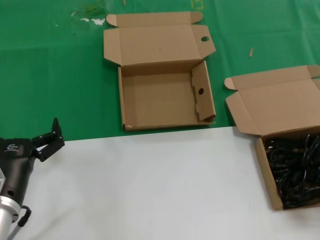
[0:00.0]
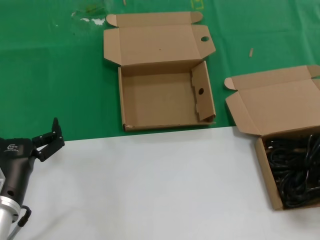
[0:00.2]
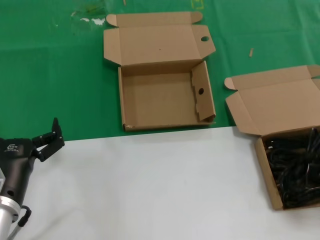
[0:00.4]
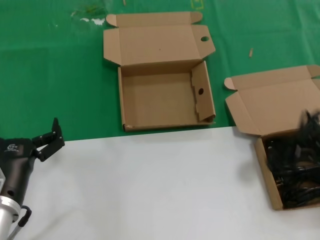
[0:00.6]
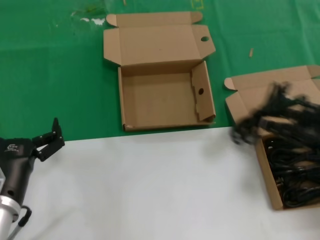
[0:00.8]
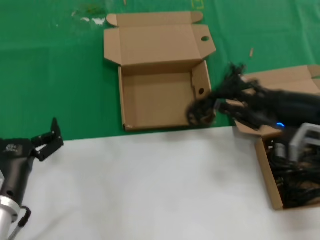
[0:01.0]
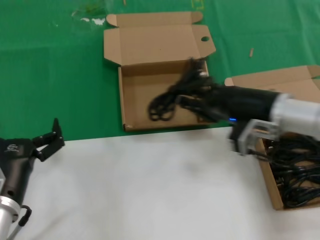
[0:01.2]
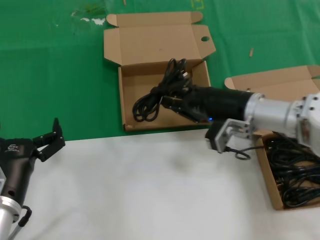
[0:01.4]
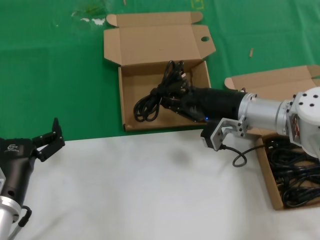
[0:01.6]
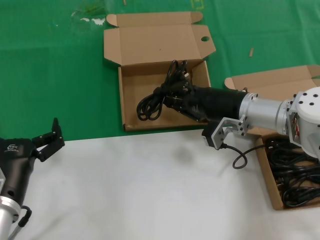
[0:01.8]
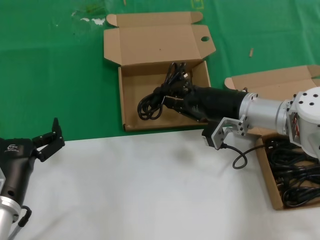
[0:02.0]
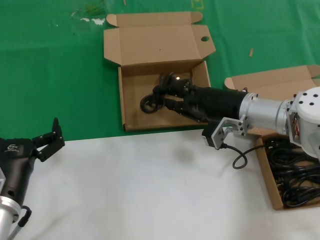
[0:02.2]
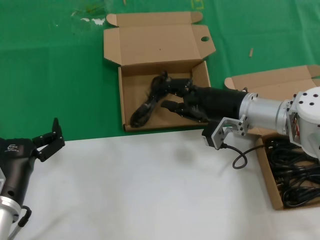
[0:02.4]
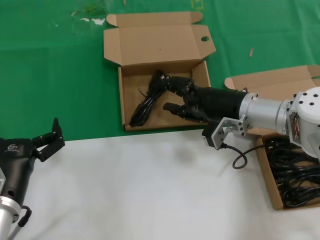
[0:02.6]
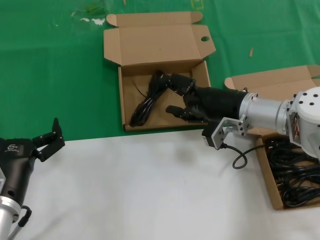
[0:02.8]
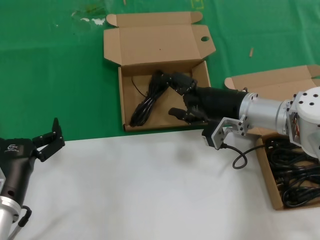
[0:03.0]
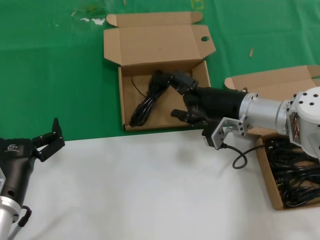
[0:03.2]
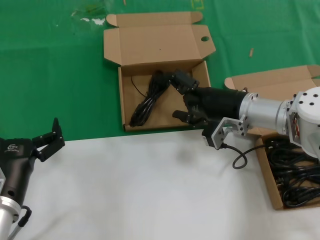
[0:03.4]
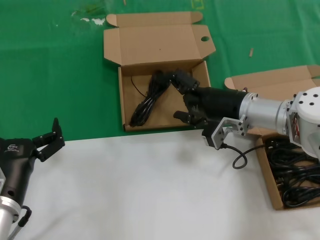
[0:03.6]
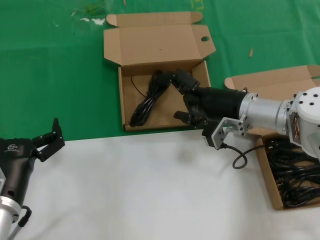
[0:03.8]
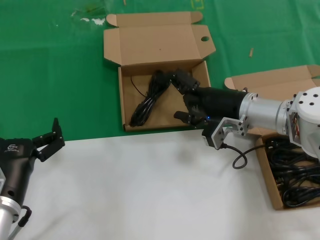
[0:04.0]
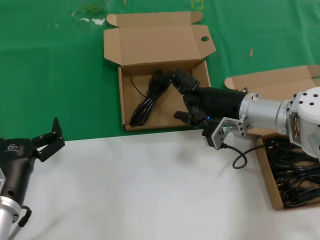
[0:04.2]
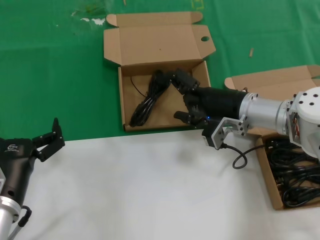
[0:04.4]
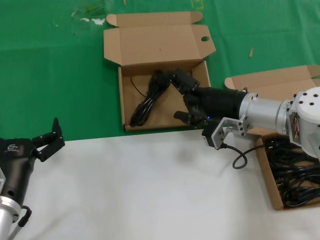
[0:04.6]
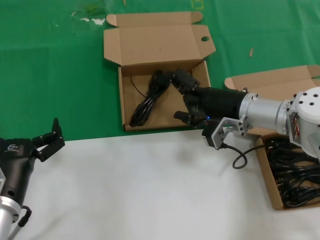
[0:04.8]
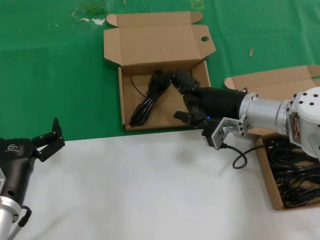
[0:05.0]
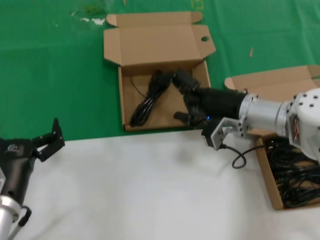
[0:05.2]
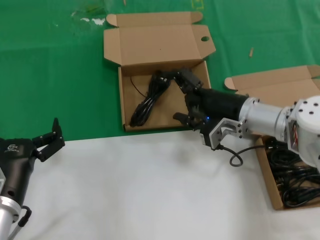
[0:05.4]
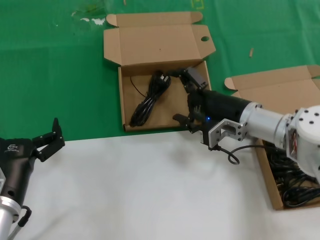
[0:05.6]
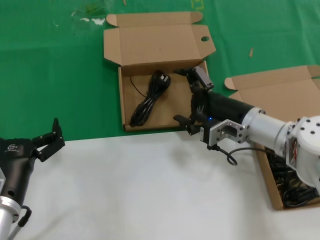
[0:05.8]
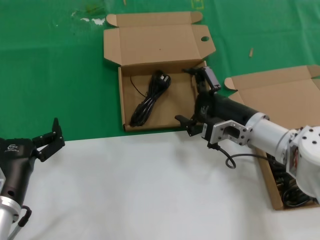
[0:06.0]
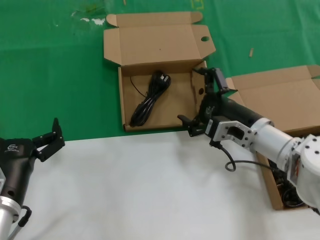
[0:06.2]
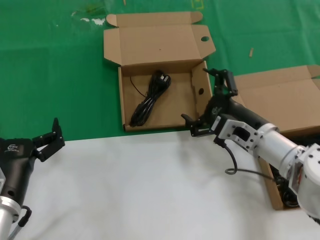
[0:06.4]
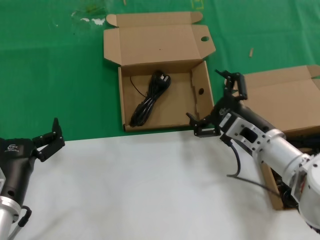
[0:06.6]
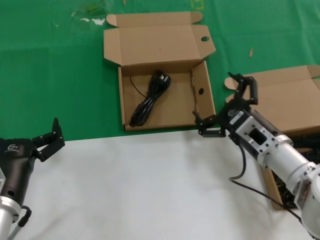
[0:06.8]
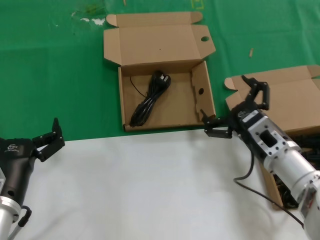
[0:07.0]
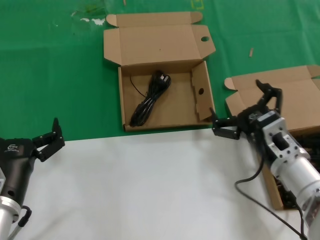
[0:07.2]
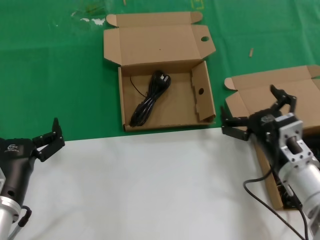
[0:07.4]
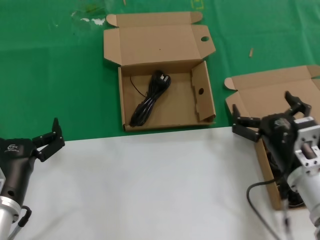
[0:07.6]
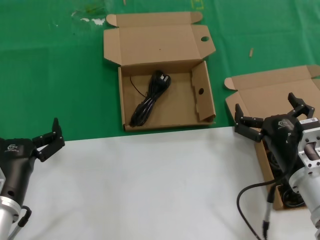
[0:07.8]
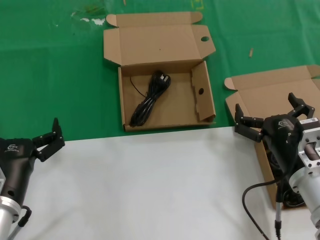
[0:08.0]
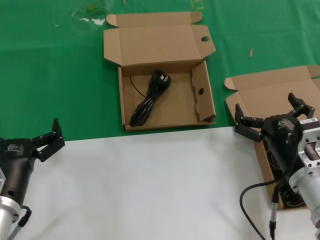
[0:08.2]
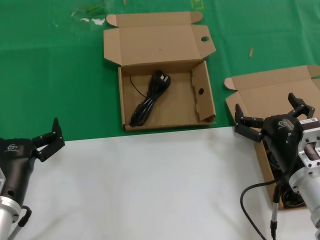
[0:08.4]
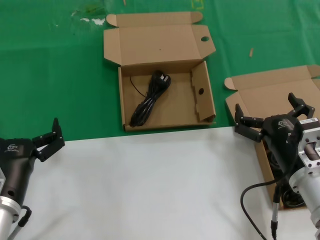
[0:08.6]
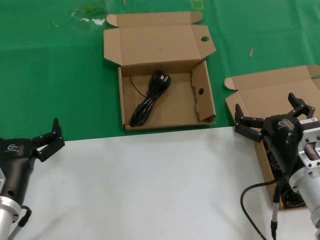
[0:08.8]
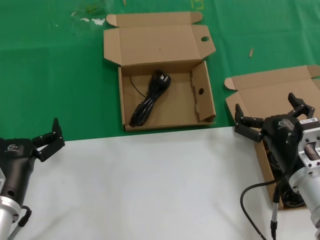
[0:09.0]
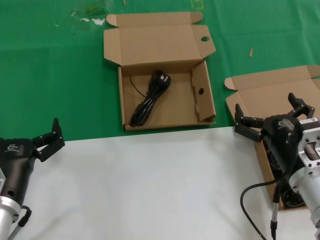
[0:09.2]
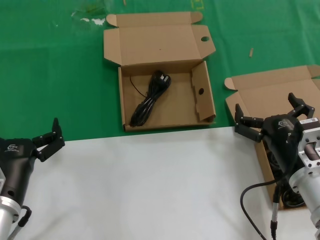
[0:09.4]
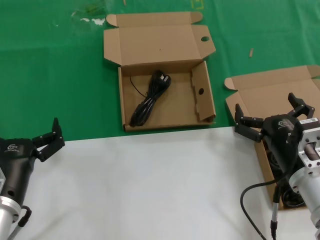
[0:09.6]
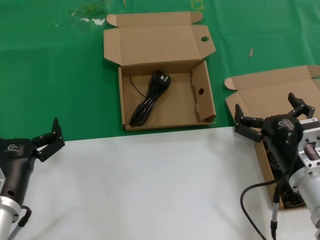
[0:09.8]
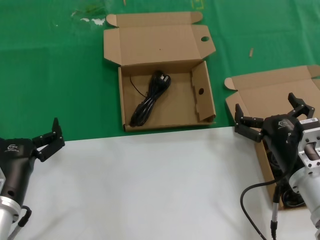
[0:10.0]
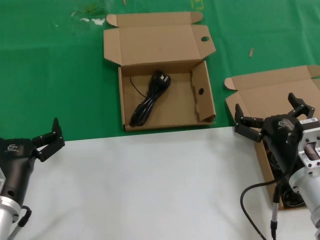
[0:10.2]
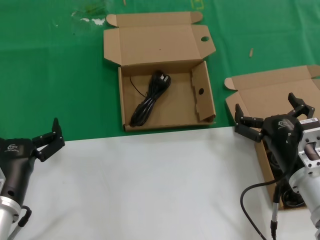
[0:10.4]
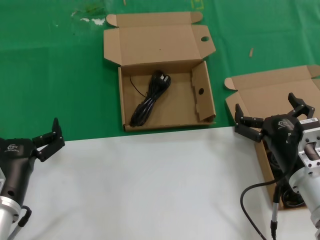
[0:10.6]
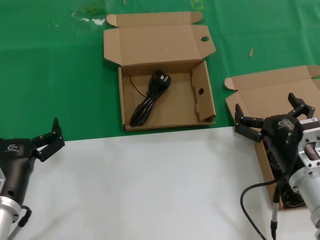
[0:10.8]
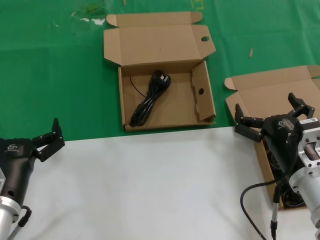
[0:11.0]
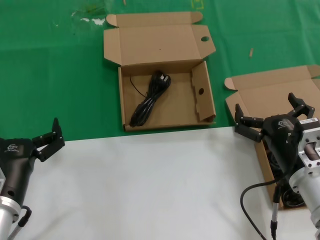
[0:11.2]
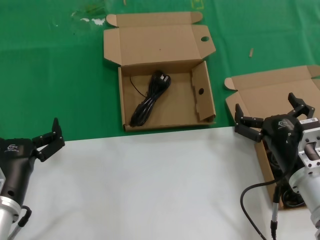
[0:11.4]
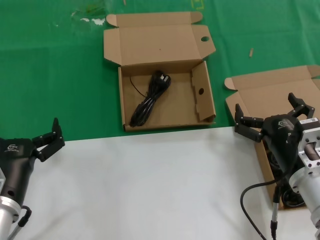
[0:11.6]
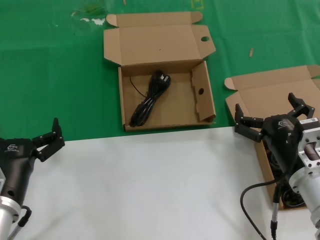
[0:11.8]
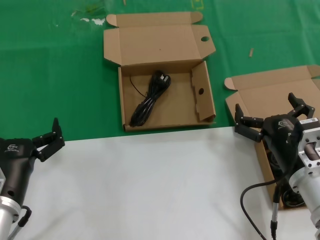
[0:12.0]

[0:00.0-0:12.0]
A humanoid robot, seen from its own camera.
Task of the whole recording: take the parts from the box containing them and put them into an empty box.
Step, 0:00.6 to 0:03.4: Place the data cable in the another box.
0:00.0 to 0:01.6: The right hand shifts roughly 30 cm to the left and forward.
0:01.6 to 0:04.4: Neither hand changes place.
0:04.4 to 0:06.0: The right hand ends up approximately 5 cm from where it was.
0:06.0 to 0:07.6: The right hand heads backward, covering some 10 cm.
0:07.6 to 0:12.0: Both hands stay put.

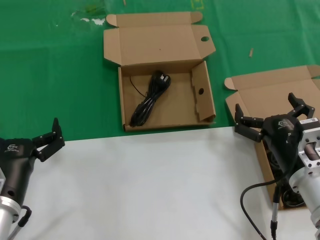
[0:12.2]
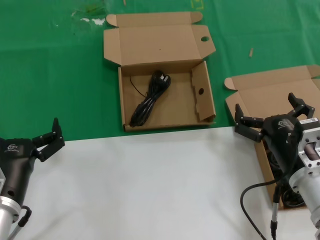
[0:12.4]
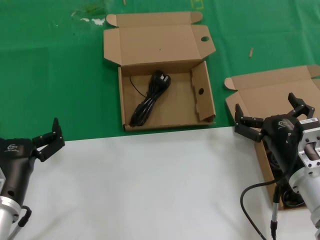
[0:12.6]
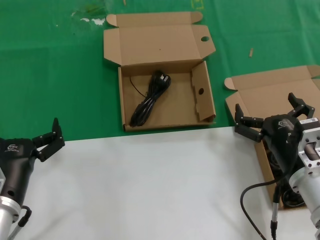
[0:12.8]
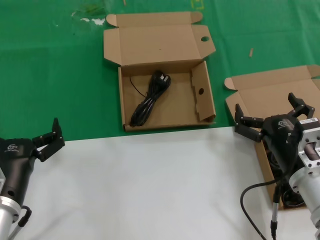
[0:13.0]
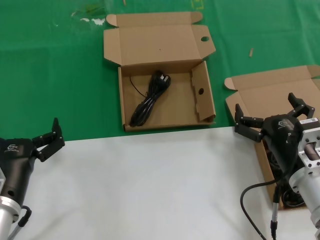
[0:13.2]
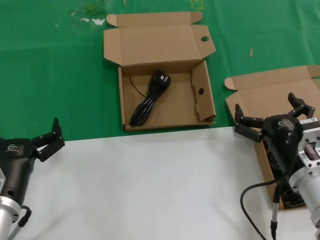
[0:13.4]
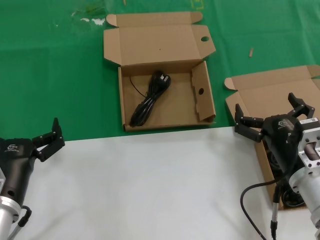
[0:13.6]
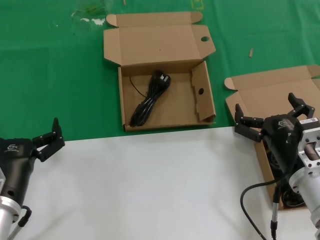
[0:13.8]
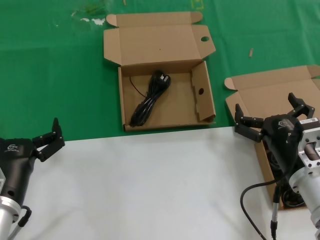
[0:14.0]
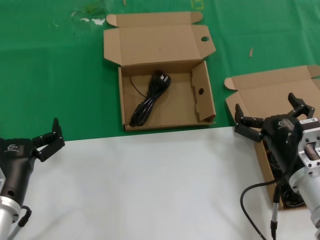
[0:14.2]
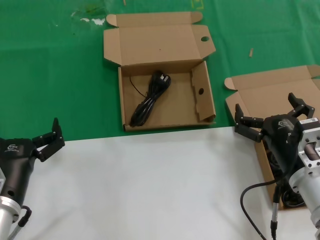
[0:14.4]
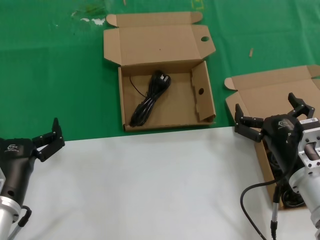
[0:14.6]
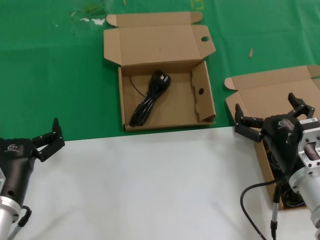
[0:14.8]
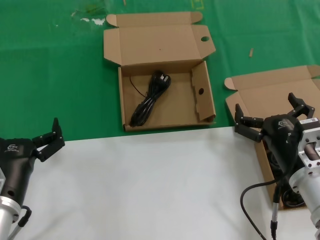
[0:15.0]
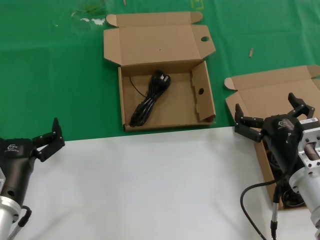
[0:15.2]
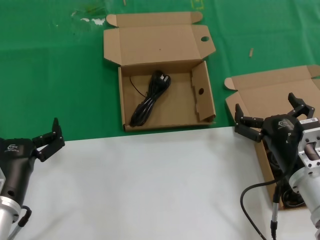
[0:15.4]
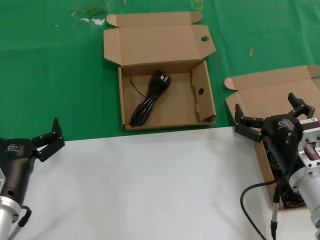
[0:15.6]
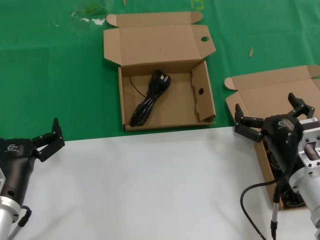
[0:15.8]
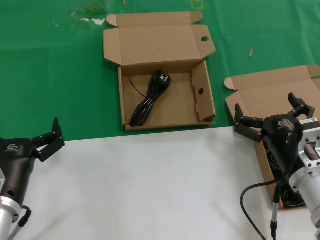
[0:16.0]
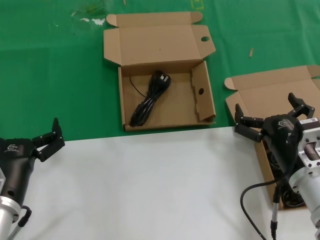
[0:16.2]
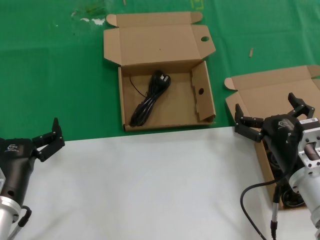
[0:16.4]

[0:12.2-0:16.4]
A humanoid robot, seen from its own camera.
Task of the whole recording: take the parts from the box containing them and put them into an empty box.
0:12.2 to 0:16.4: Neither hand changes place.
